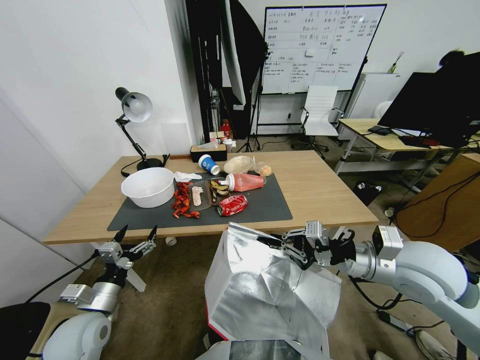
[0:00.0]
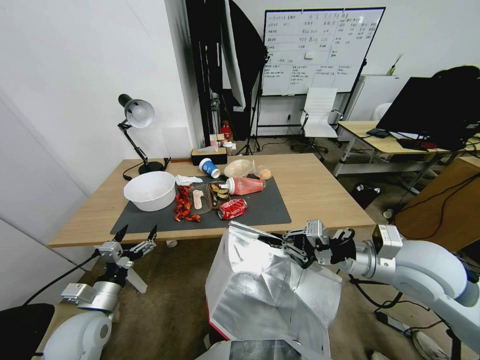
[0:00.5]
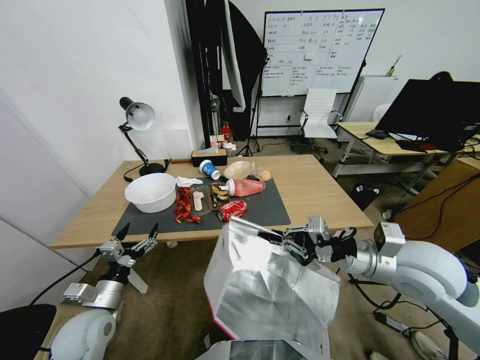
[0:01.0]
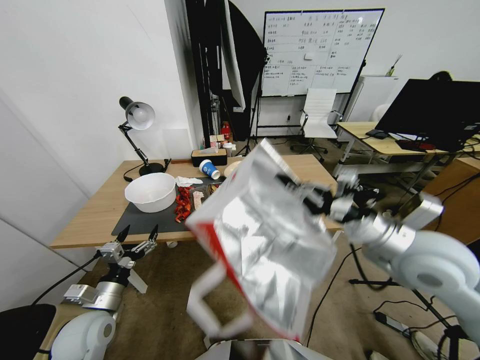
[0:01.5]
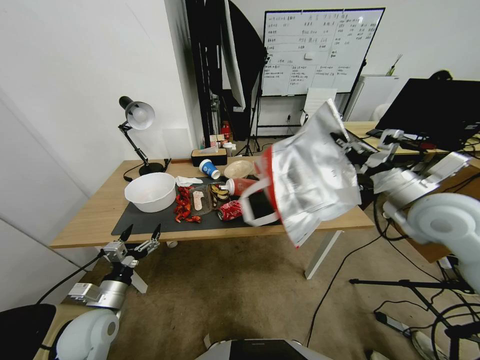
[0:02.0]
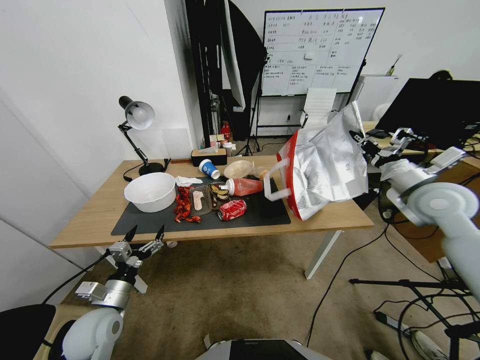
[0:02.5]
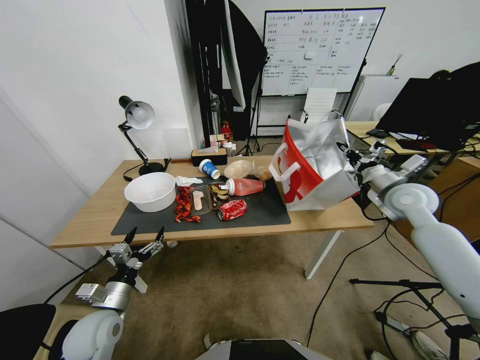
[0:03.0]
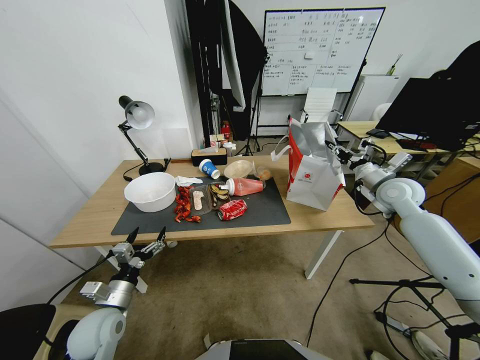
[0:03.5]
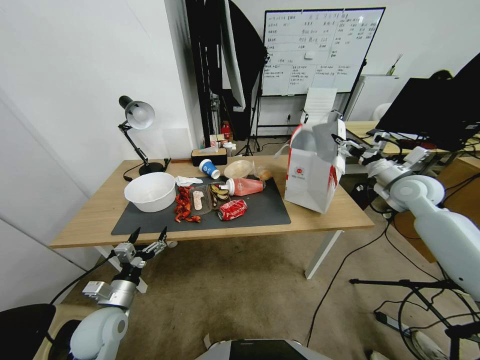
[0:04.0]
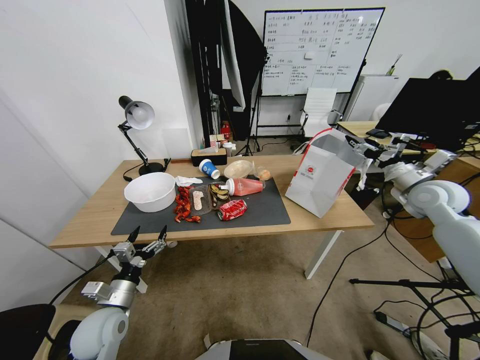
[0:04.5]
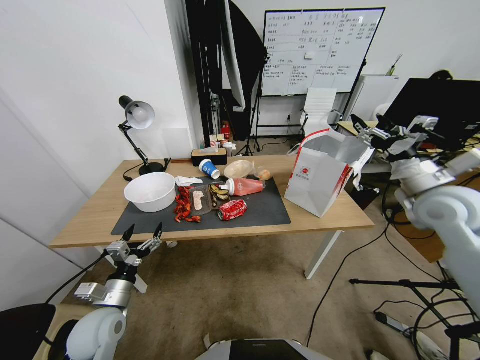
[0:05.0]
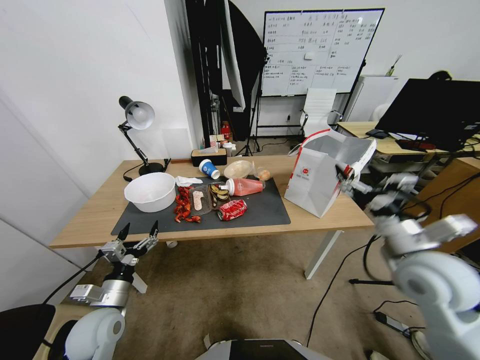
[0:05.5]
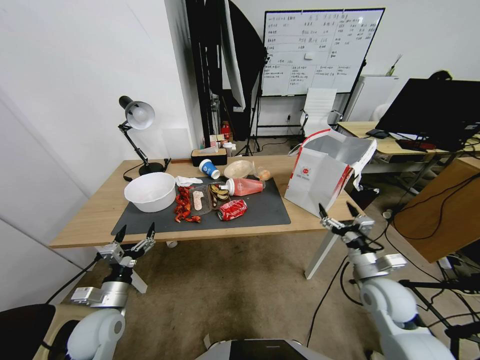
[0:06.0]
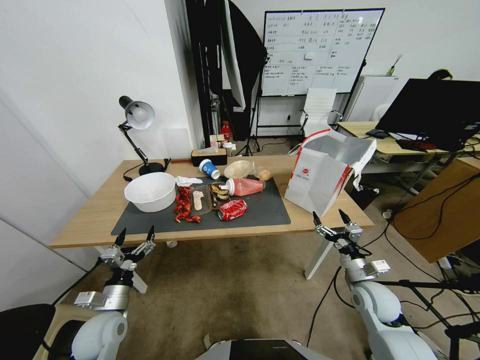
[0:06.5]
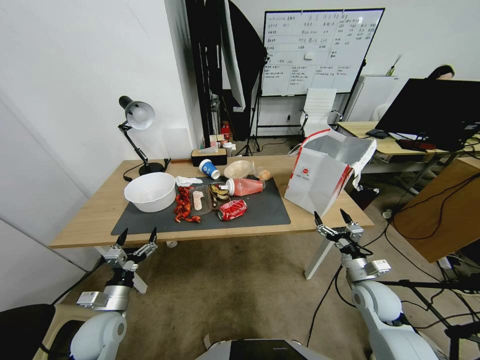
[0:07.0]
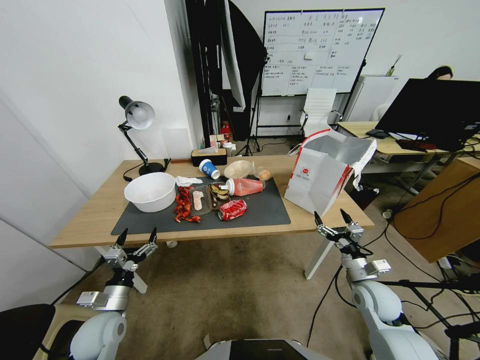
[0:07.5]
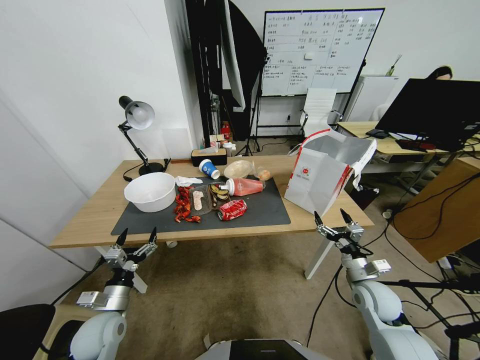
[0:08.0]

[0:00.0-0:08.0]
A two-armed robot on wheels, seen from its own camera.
Task of the whole recording: Pick up the food delivery bag from the floor and place it on the table.
0:00.0 to 0:02.0: The right gripper heads forward, to the right and upward, covering approximately 15 cm.
0:02.0 to 0:04.0: The right gripper goes roughly 15 cm forward, to the right and downward, and opens its fingers.
0:04.0 to 0:06.0: The right gripper heads backward, downward and to the left, covering some 30 cm.
0:06.0 to 0:08.0: The grippers make only small movements.

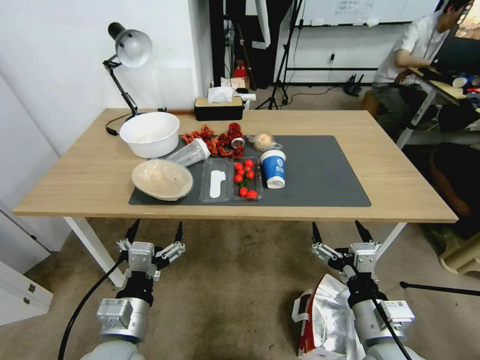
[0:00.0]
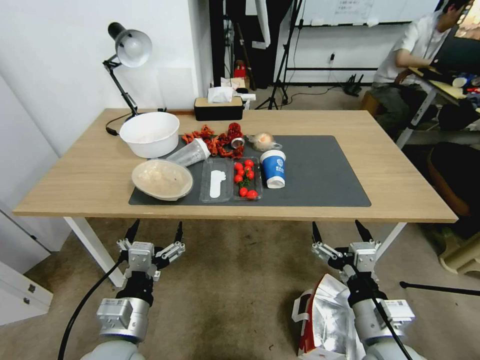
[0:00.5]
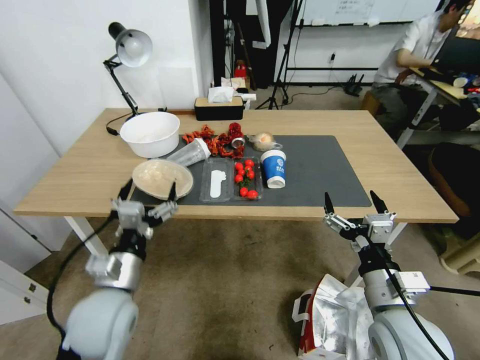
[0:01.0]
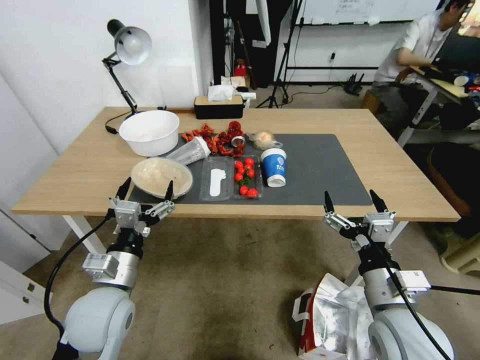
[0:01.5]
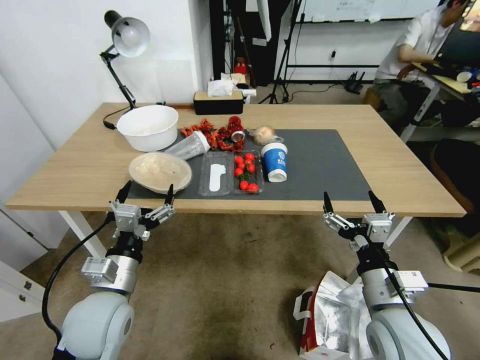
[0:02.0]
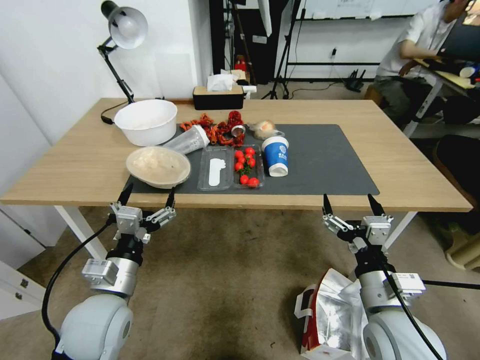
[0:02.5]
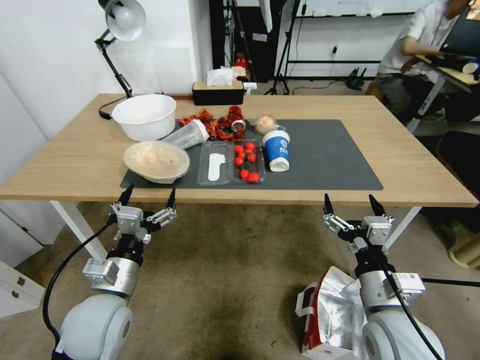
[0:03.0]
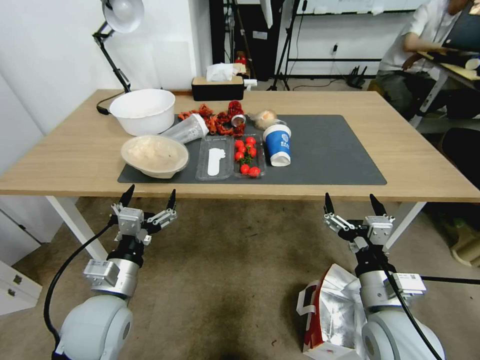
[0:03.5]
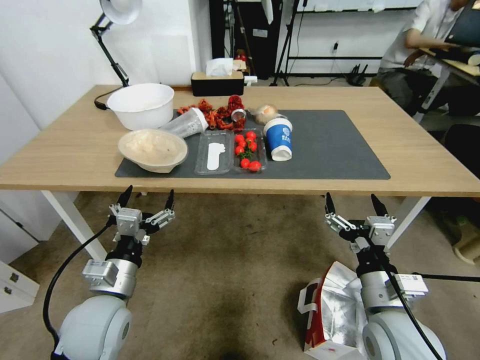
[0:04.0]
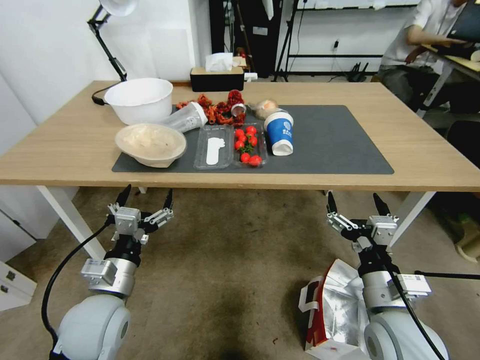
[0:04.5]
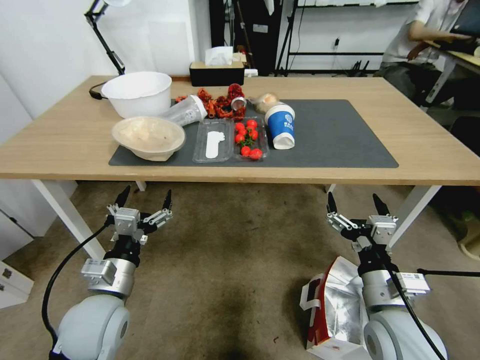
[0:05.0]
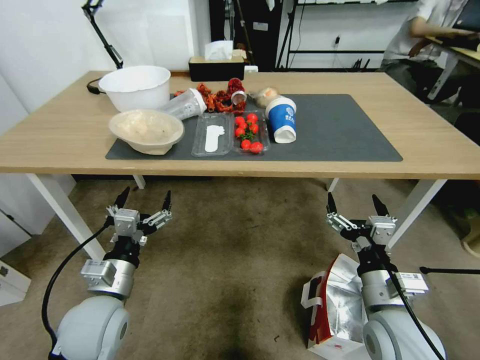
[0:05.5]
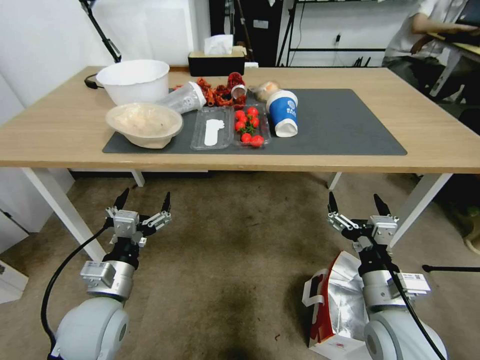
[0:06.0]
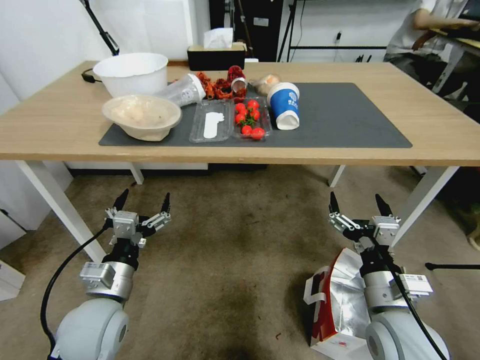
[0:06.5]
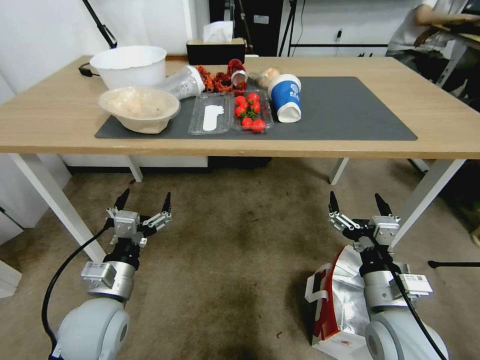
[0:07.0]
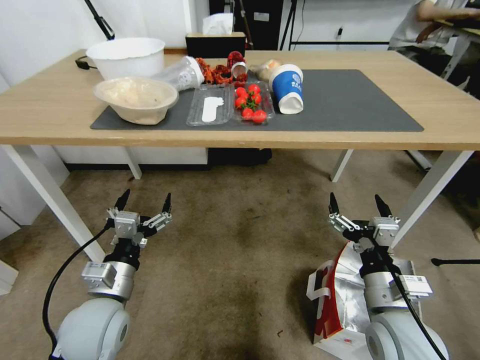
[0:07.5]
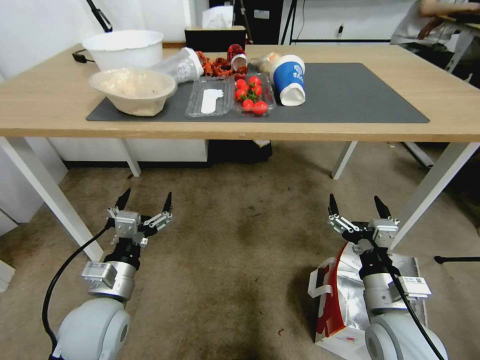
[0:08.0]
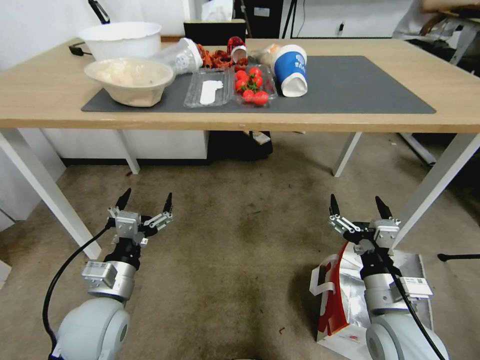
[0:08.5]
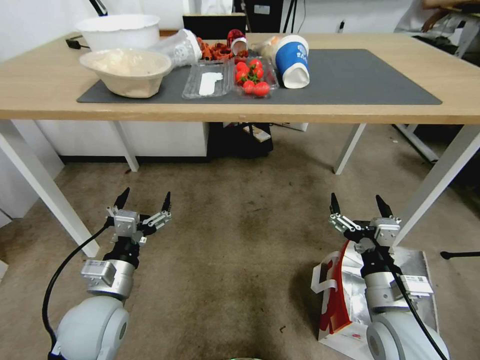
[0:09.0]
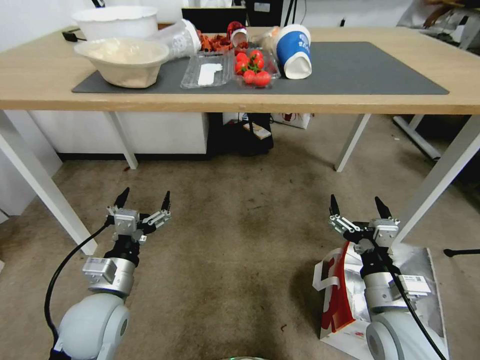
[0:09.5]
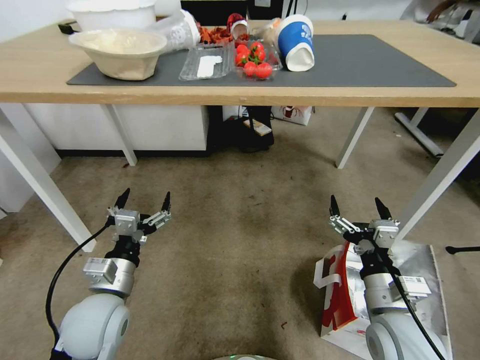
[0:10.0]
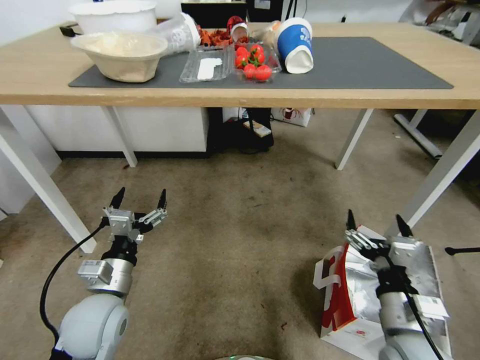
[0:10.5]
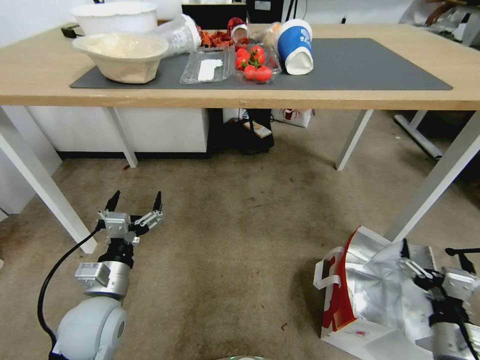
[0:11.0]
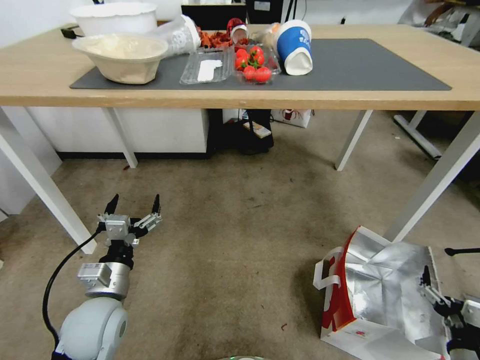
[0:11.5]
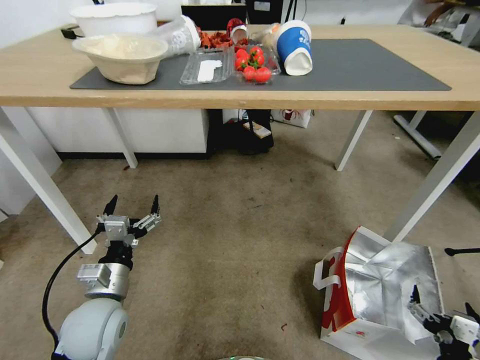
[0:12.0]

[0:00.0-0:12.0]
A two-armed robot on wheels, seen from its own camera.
Task of the whole recording: Pick up the food delivery bag from the floor and place it on the table.
0:10.0 to 0:12.0: The right gripper is displaced to the right, downward and backward by approximately 20 cm.

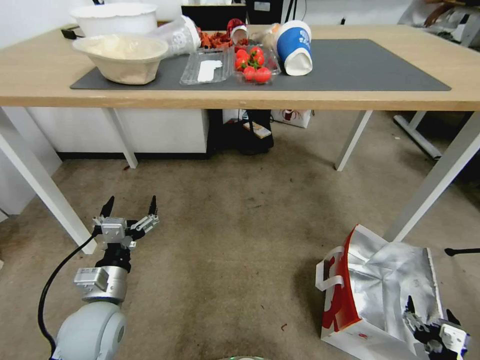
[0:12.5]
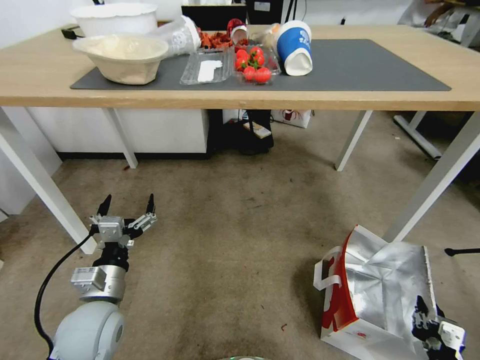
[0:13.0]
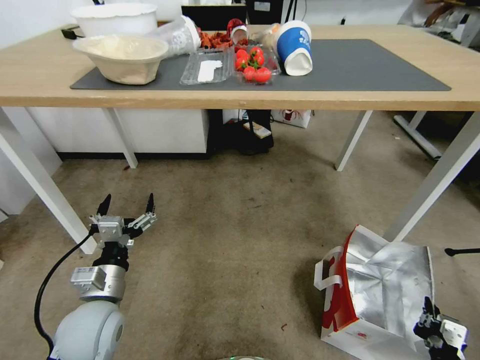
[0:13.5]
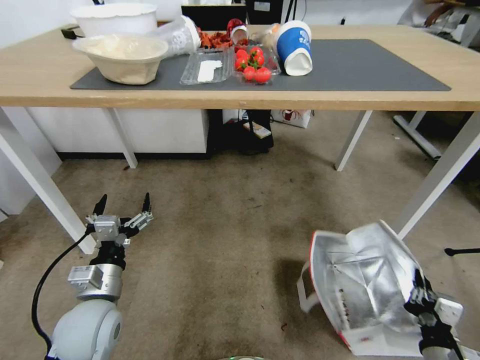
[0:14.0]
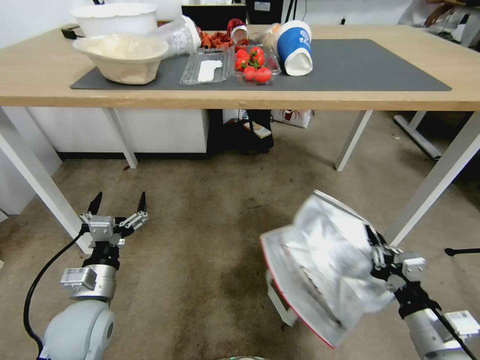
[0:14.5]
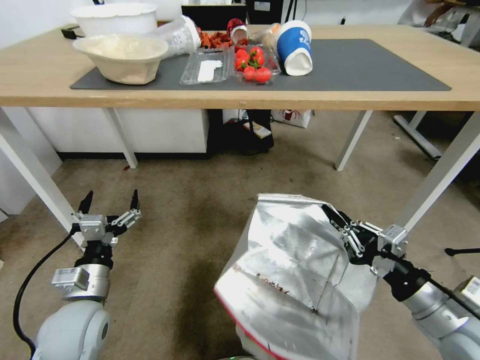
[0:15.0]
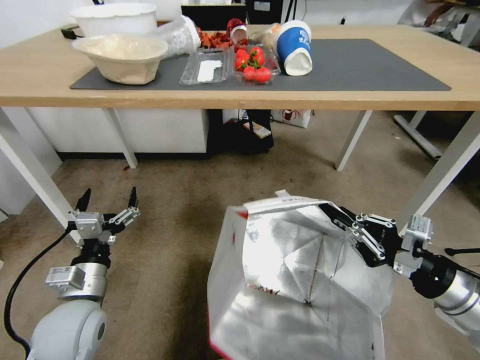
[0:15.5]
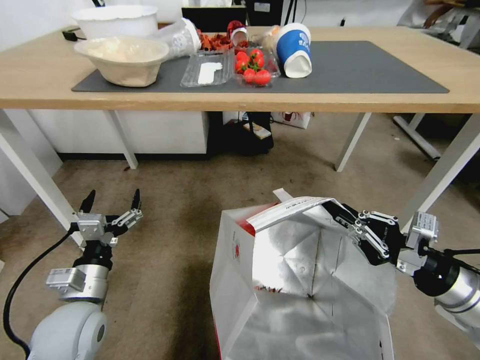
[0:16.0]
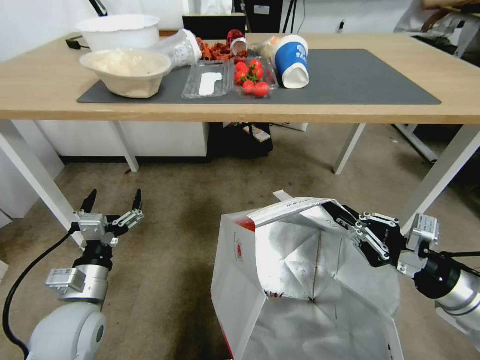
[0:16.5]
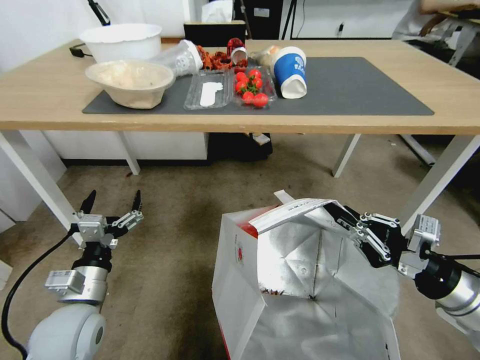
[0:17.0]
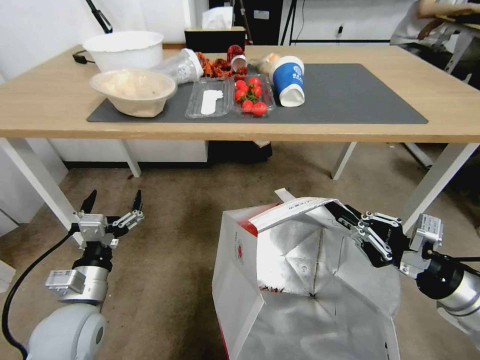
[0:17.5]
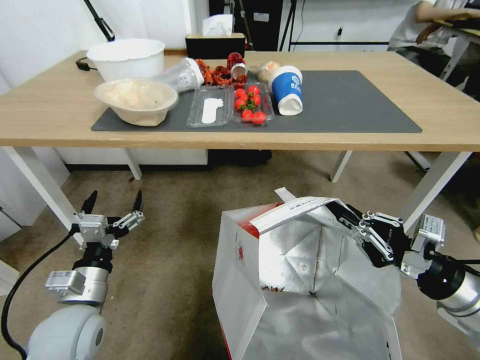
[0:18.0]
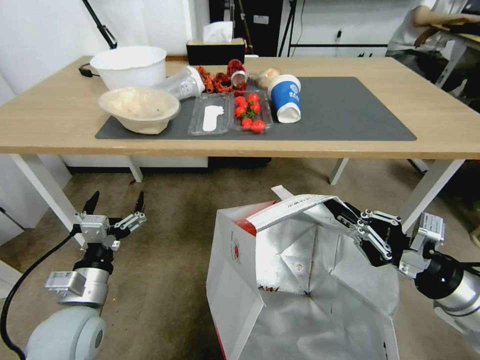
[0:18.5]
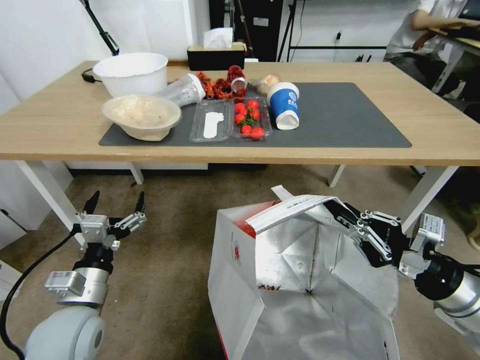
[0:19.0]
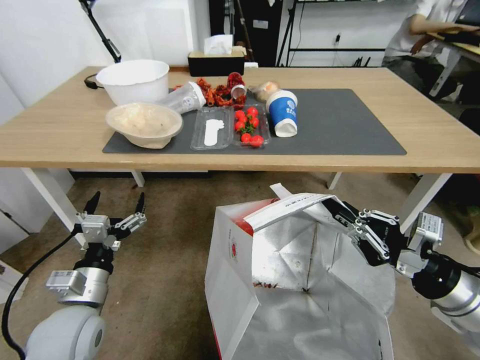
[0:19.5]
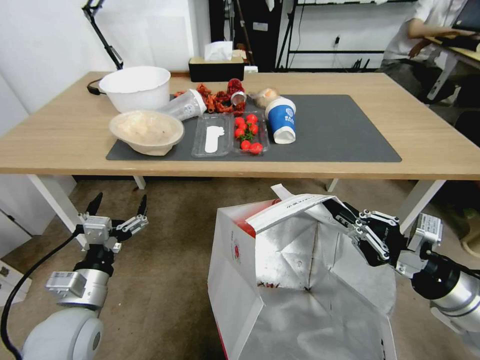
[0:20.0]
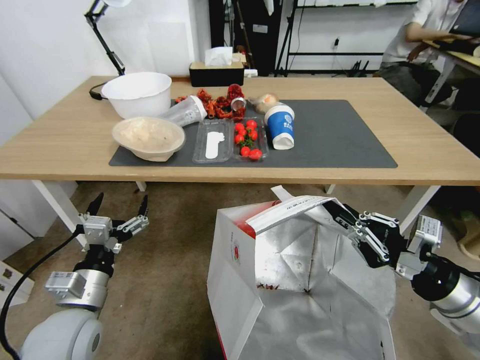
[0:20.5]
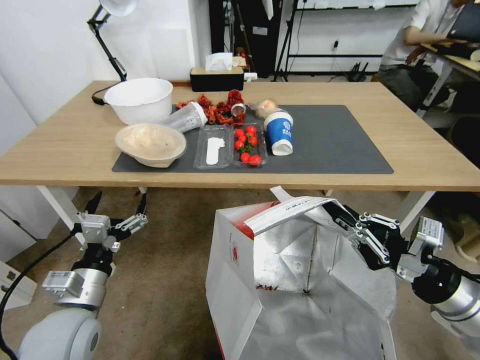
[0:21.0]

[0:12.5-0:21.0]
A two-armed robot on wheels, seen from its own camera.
Task of the whole recording: Pick up the food delivery bag from the floor and place it on the table.
0:12.5 to 0:14.5: The right gripper travels upward and forward by some 15 cm, and closes.
0:14.5 to 0:16.5: The right gripper goes some 10 cm upward and forward.
